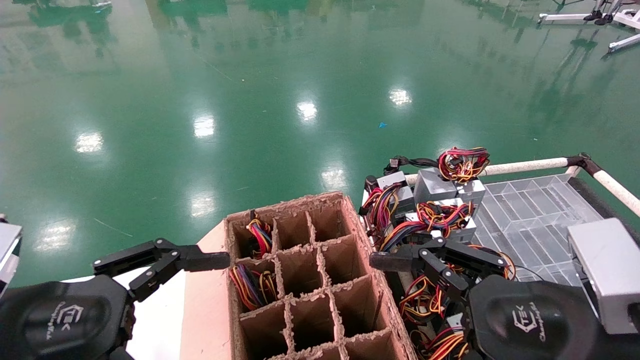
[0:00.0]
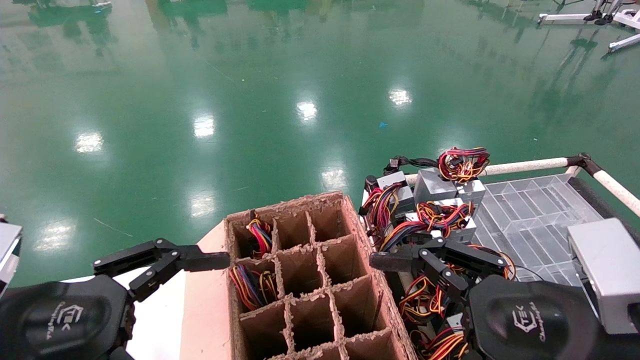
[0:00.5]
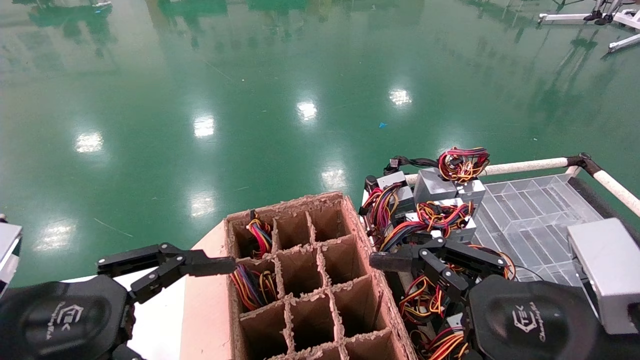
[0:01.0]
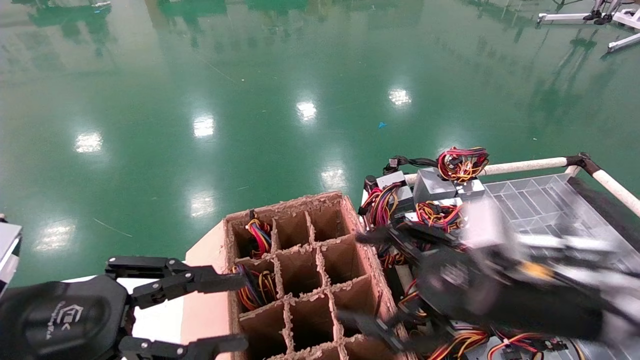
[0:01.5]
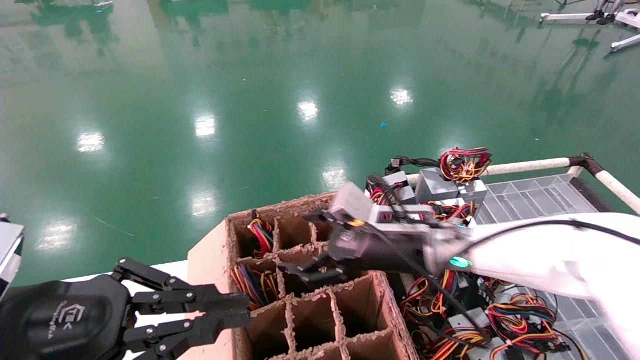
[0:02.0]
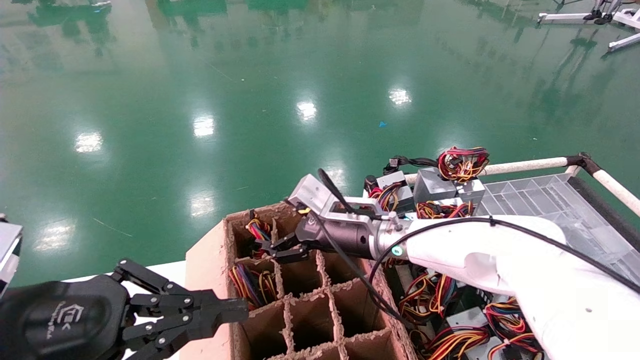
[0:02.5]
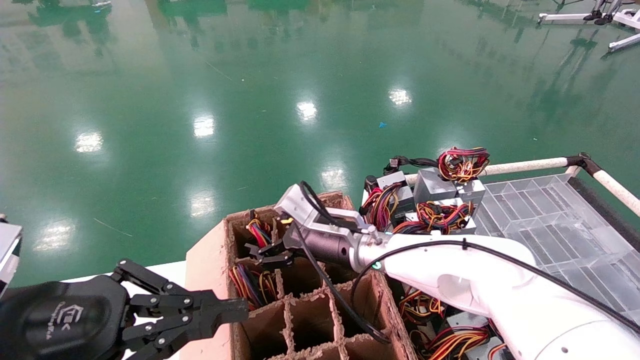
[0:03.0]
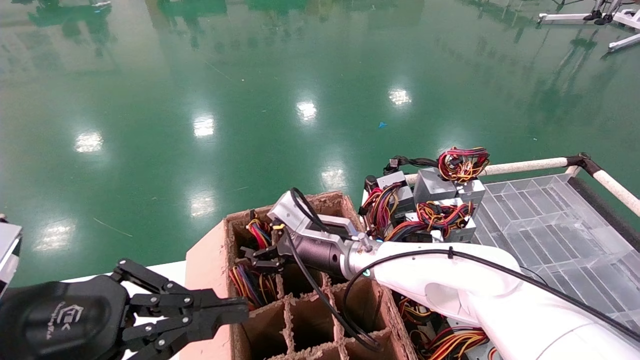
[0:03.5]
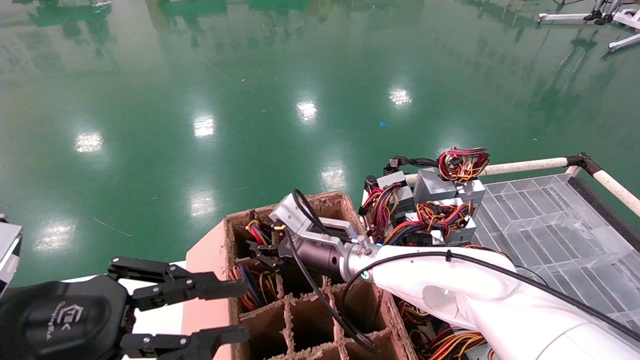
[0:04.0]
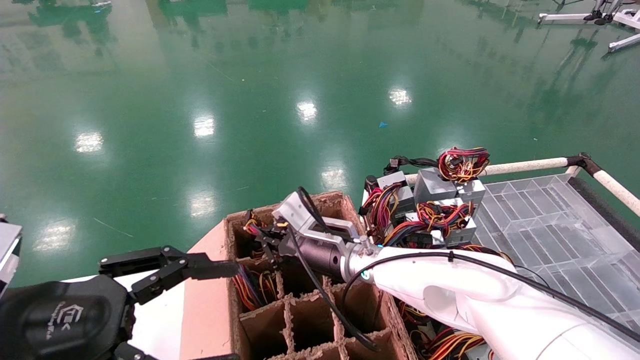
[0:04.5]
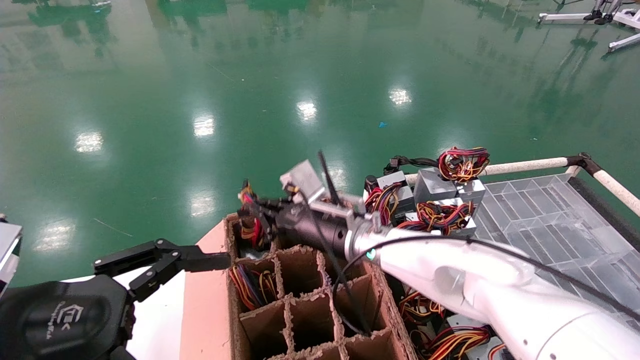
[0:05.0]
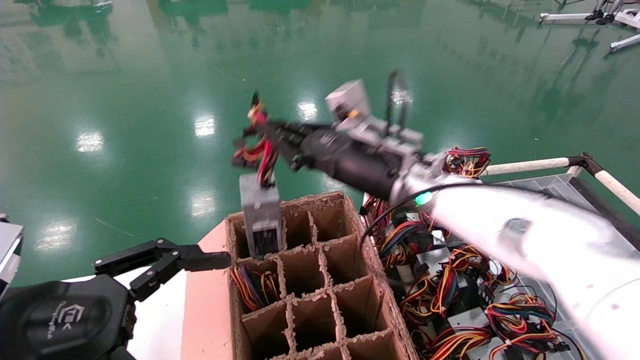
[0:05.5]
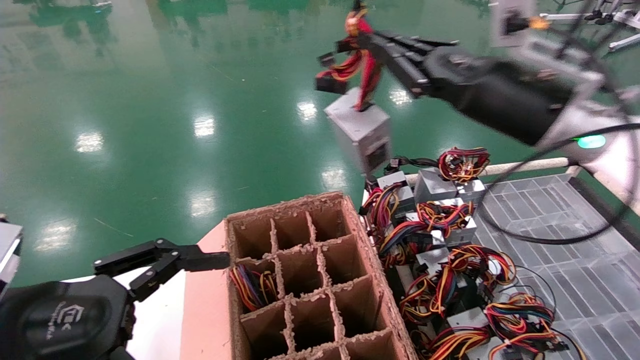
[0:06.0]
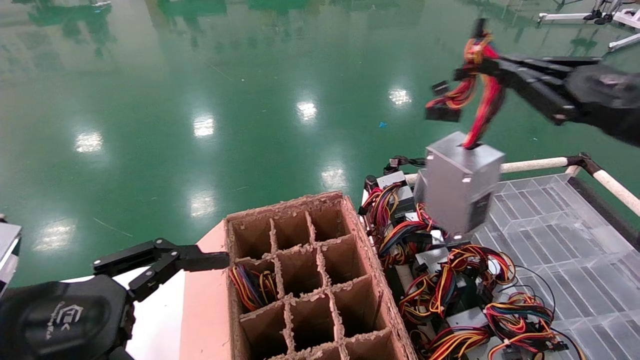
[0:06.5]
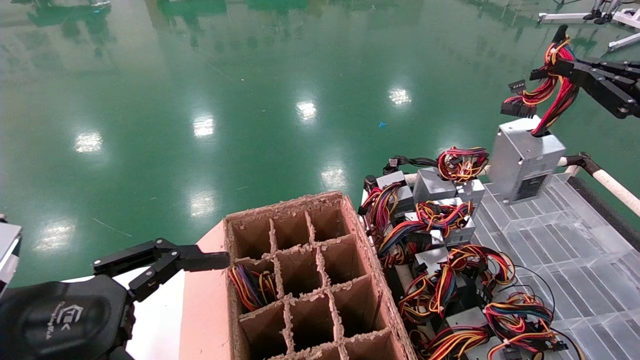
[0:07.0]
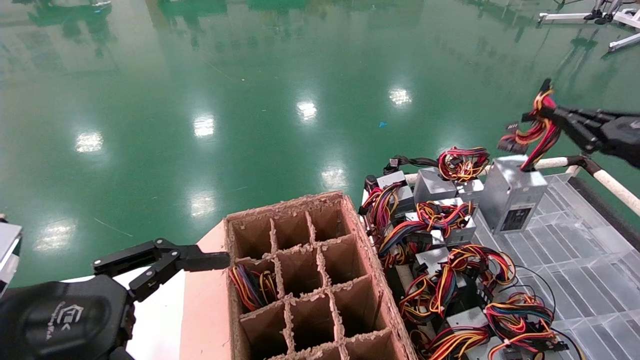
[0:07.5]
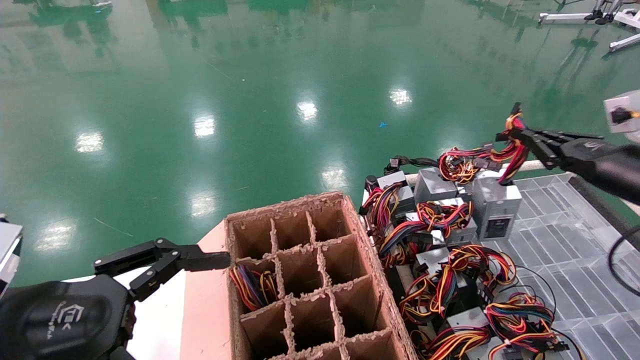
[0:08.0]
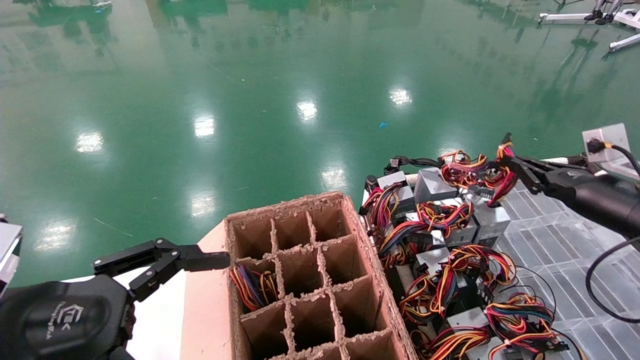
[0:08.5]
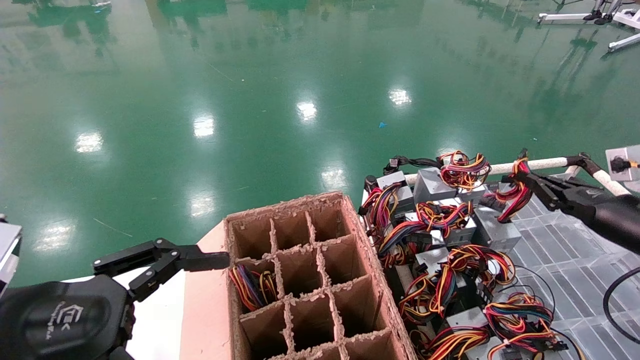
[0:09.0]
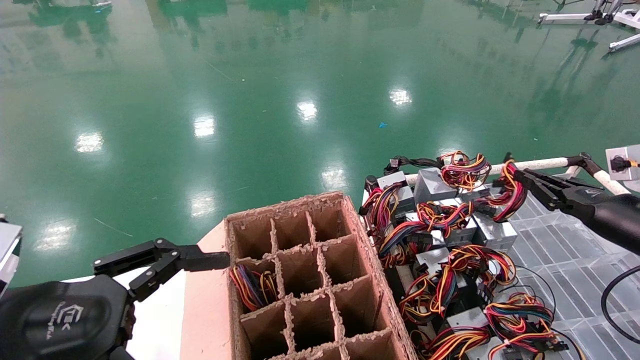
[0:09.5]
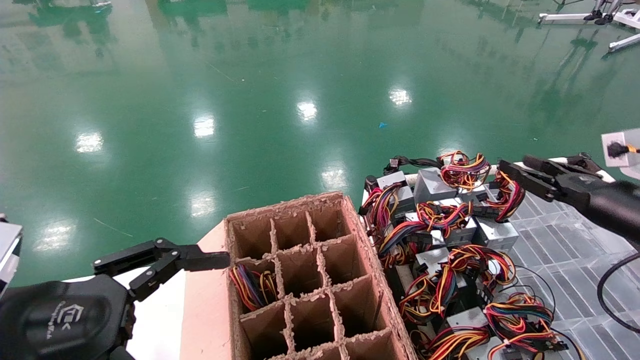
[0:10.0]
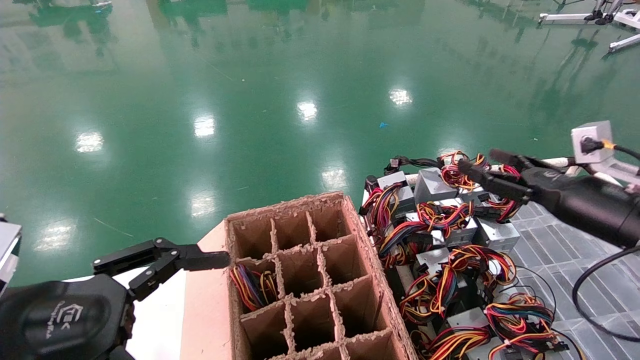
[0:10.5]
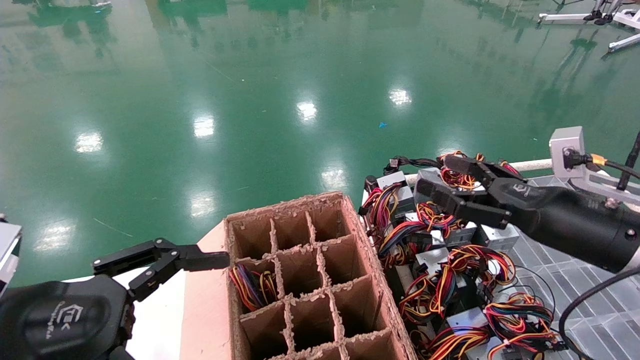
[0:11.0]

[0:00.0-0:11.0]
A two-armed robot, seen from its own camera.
Step, 0:02.5 to 0:04.5: Grab and lift the power supply from the large box.
Step, 0:05.0 to 0:09.5: Place the power supply on the operating table.
0:00.0 to 0:02.0: The left gripper closes up. The right gripper moves forward and to the left, roughly 25 cm.
0:02.0 to 0:03.5: The right gripper shifts some 10 cm to the left.
0:03.5 to 0:05.5: The right gripper moves upward and to the right, roughly 15 cm, and closes its fingers; the left gripper opens its fingers.
0:05.5 to 0:07.5: The right gripper heads to the right, covering approximately 35 cm.
0:07.5 to 0:09.0: The right gripper moves downward, about 10 cm.
0:09.0 to 0:11.0: The right gripper is displaced to the left by approximately 15 cm, and opens its fingers.

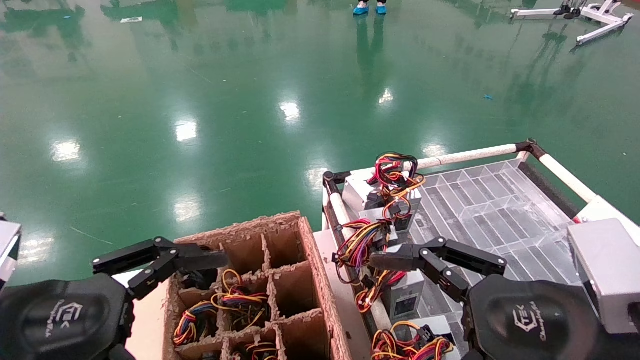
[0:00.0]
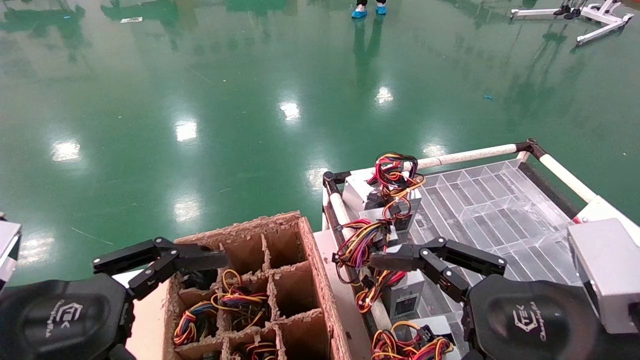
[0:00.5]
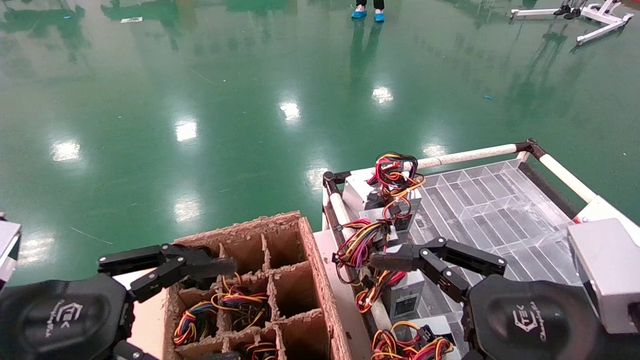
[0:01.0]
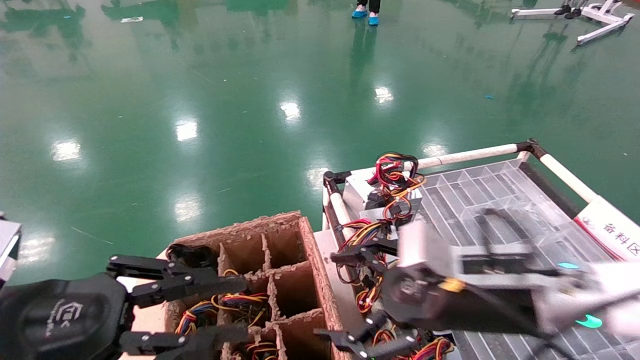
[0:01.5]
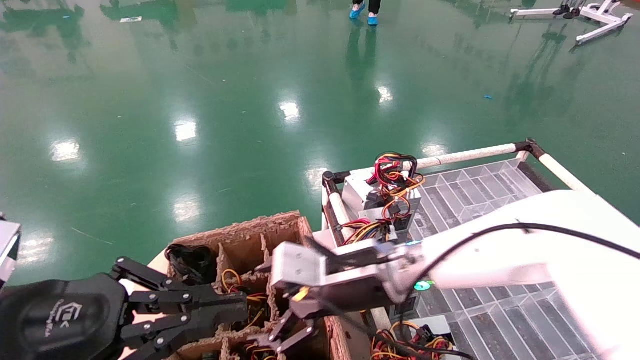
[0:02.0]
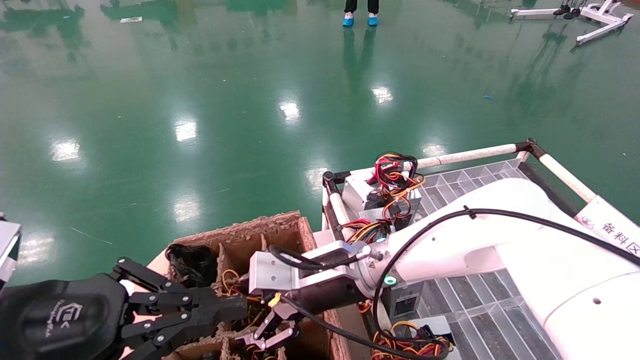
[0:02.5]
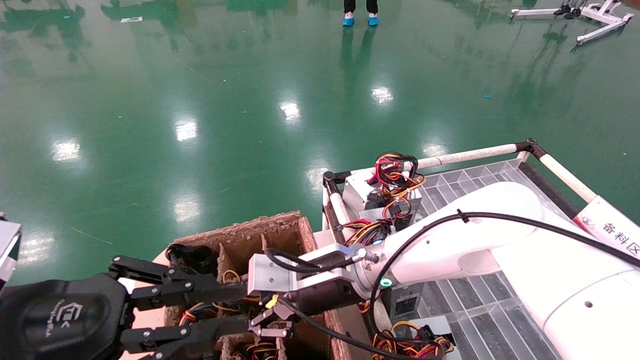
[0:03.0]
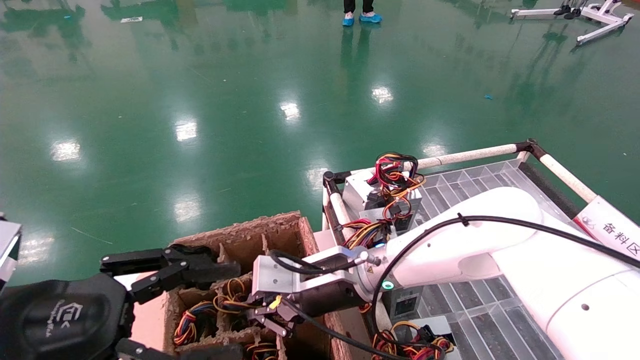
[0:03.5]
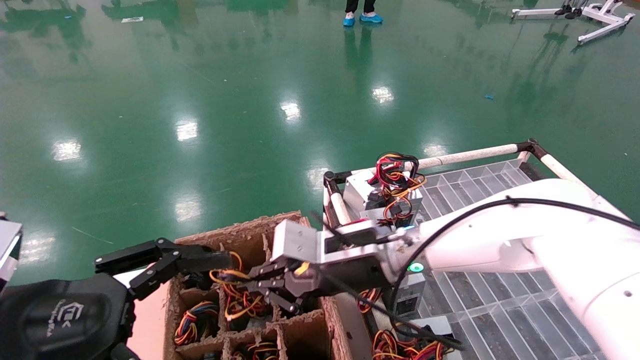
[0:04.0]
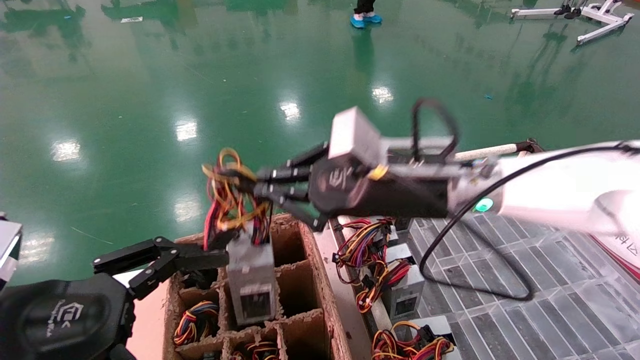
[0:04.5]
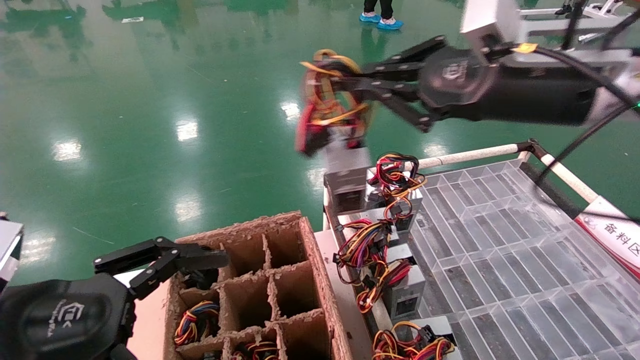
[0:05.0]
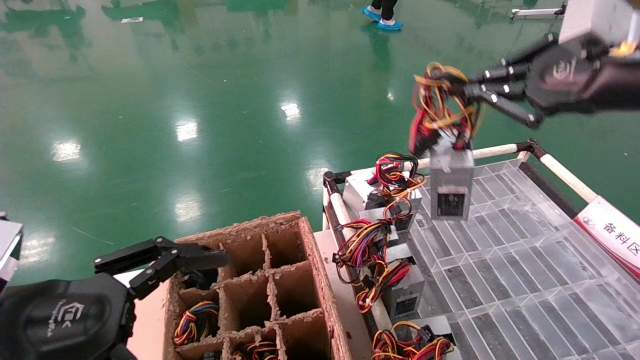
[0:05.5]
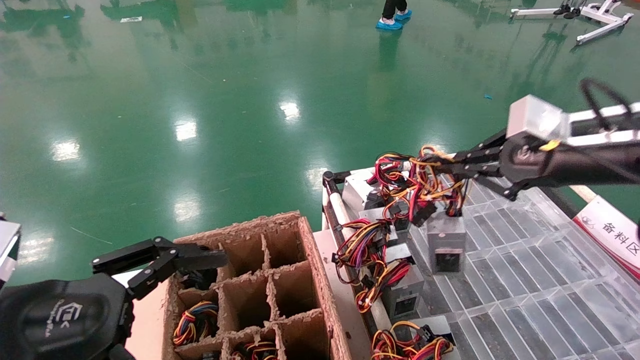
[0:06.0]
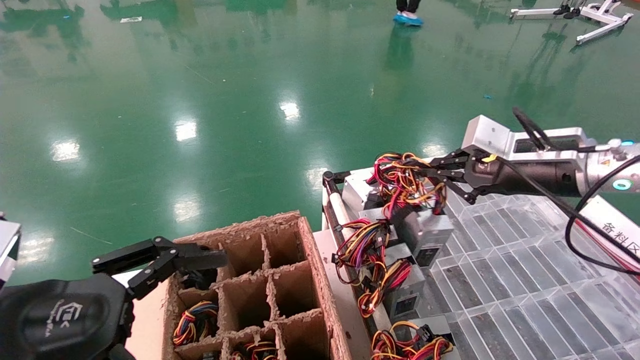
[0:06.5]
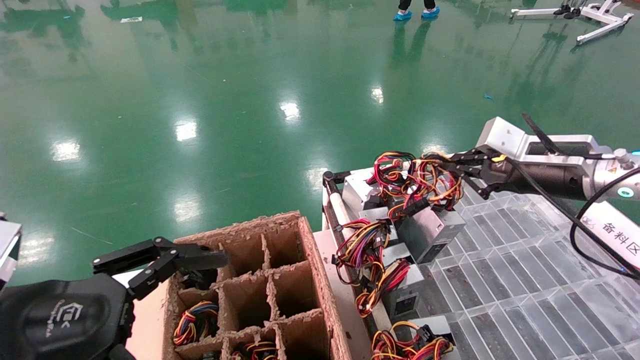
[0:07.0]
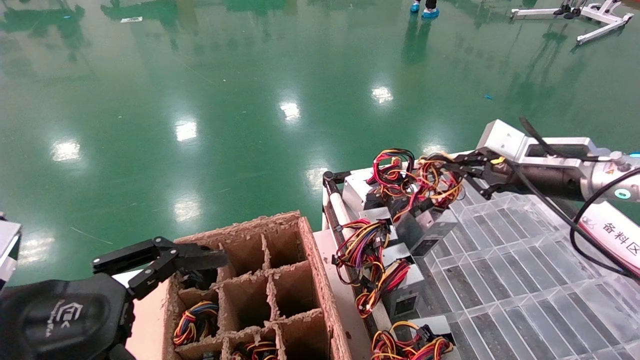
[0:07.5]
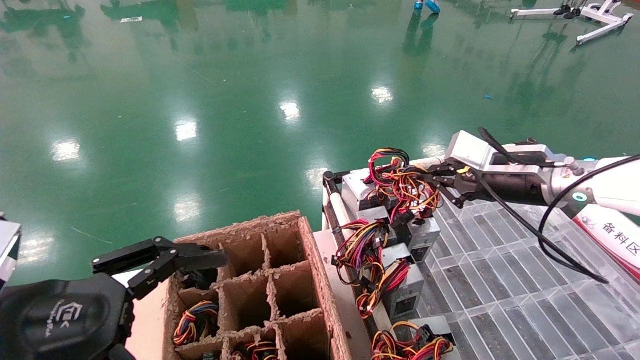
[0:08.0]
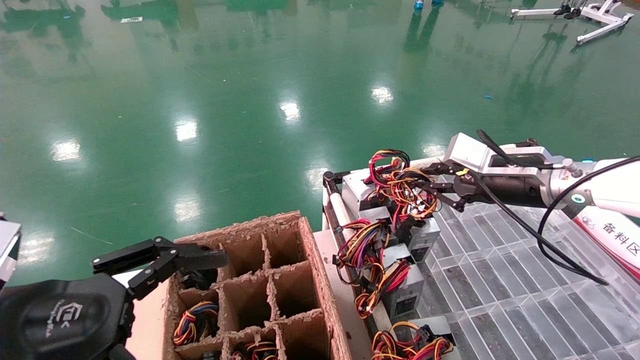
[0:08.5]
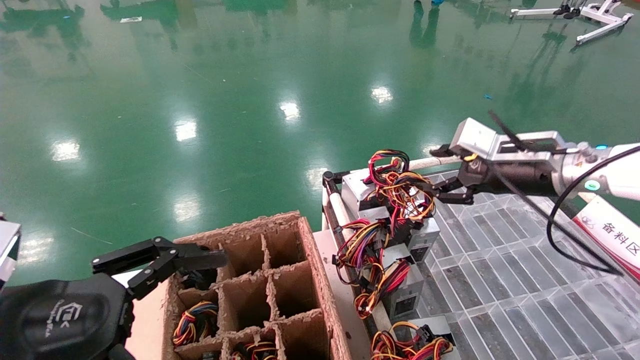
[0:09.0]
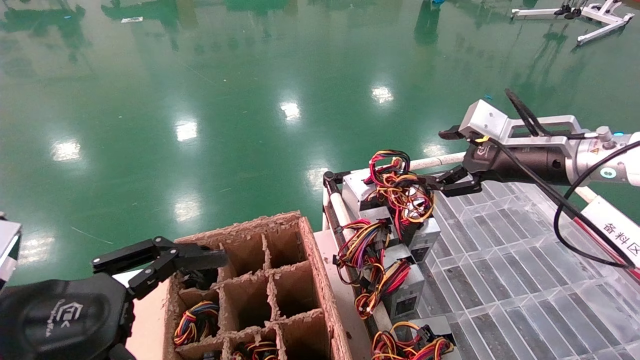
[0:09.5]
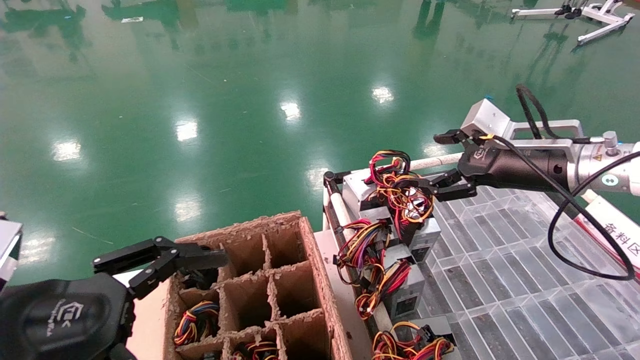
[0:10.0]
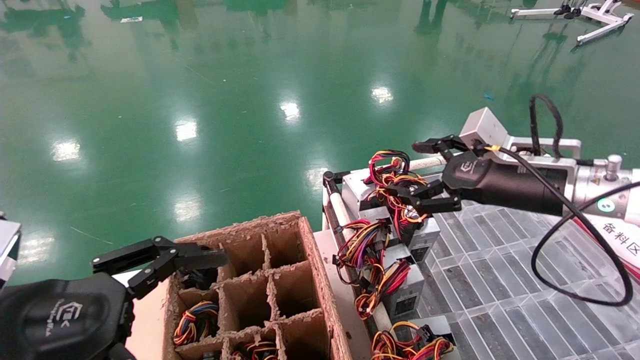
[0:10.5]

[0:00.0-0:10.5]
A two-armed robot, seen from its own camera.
Step, 0:01.0 to 0:03.5: Grab and lift the power supply from the large box.
Step, 0:04.0 to 0:08.5: Place the power supply on the operating table.
0:00.0 to 0:02.0: The right gripper heads forward and to the left, covering about 25 cm. Meanwhile the left gripper closes its fingers.
0:02.0 to 0:04.0: The left gripper opens its fingers. Meanwhile the right gripper closes.
0:04.0 to 0:06.5: The right gripper travels to the right and upward by about 25 cm.
0:06.5 to 0:08.5: There are only small adjustments of the grippers.
0:08.5 to 0:10.5: The right gripper ends up approximately 5 cm from where it was, and opens its fingers.
